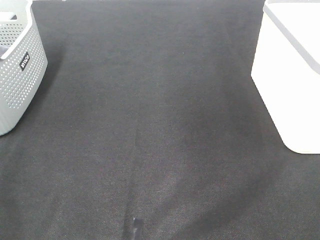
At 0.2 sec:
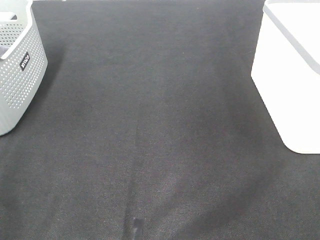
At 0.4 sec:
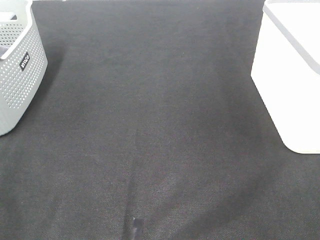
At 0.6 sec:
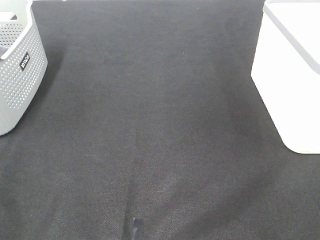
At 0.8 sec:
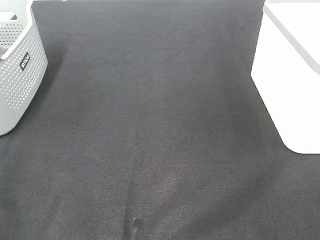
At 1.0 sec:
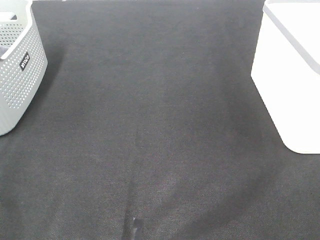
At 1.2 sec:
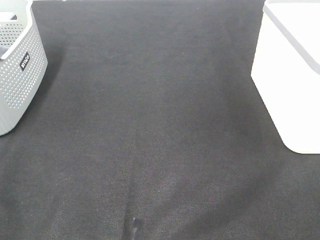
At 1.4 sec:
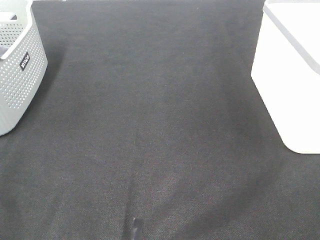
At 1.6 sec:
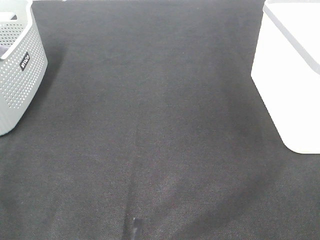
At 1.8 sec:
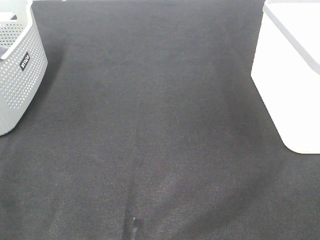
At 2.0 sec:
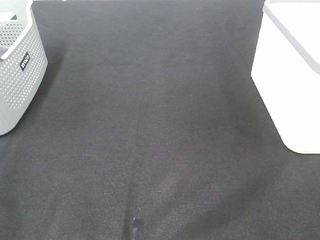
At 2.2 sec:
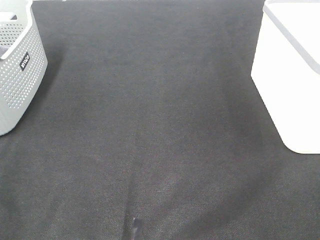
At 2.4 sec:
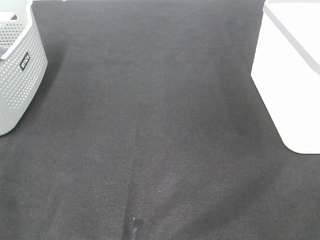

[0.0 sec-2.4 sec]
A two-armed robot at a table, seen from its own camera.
1.2 sec to 2.4 sec: The two grippers keep their place.

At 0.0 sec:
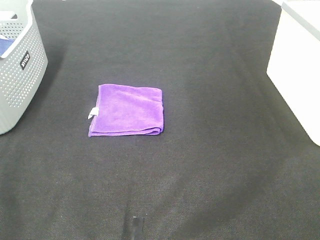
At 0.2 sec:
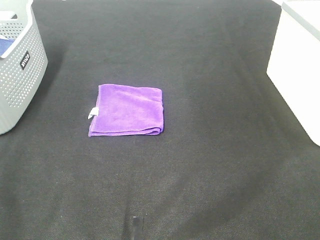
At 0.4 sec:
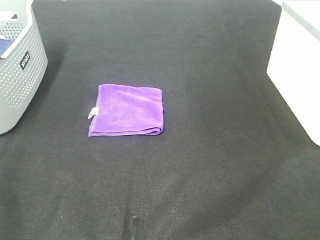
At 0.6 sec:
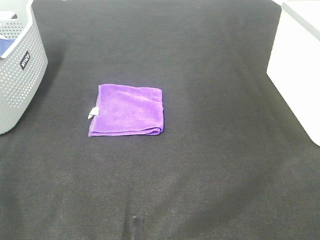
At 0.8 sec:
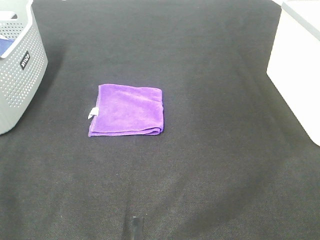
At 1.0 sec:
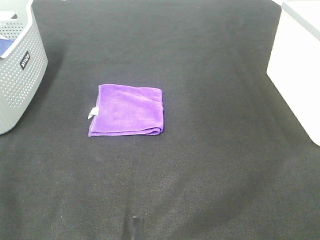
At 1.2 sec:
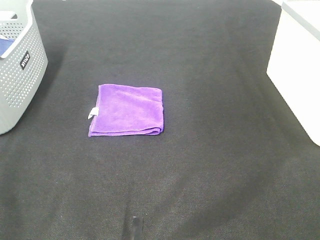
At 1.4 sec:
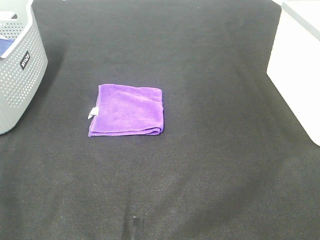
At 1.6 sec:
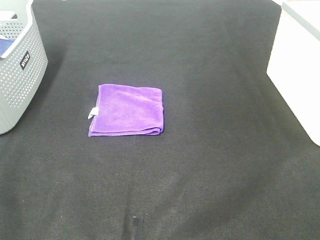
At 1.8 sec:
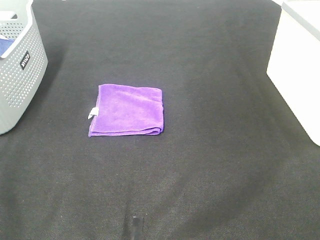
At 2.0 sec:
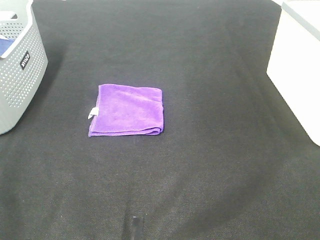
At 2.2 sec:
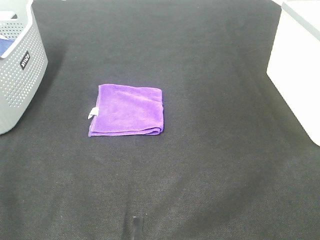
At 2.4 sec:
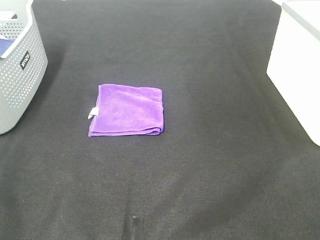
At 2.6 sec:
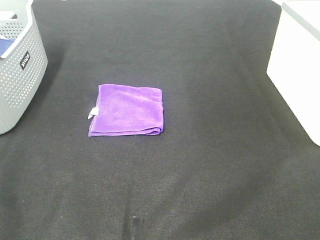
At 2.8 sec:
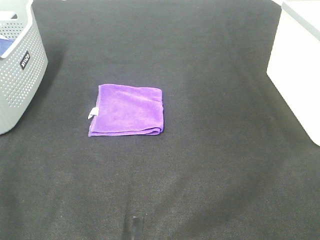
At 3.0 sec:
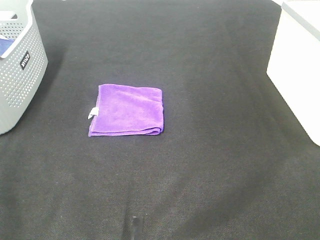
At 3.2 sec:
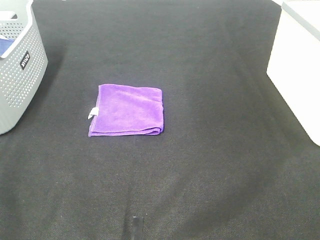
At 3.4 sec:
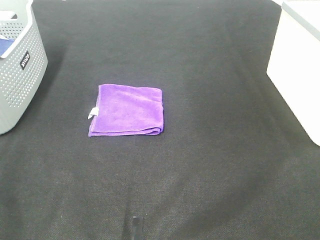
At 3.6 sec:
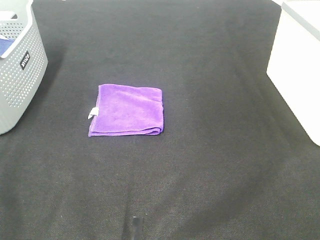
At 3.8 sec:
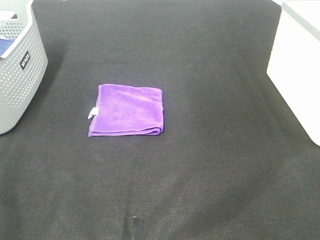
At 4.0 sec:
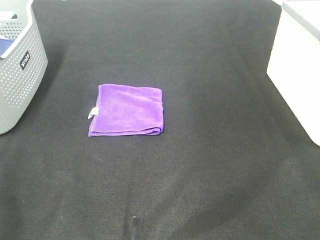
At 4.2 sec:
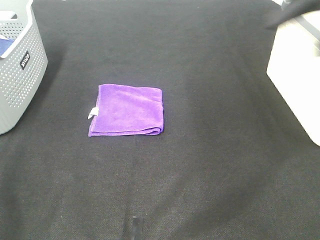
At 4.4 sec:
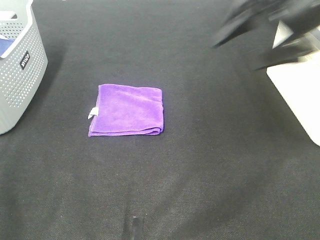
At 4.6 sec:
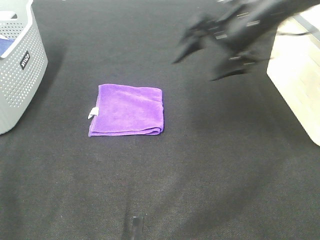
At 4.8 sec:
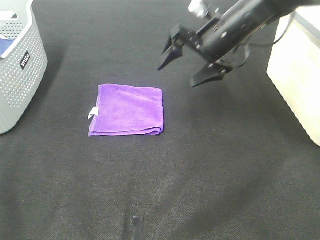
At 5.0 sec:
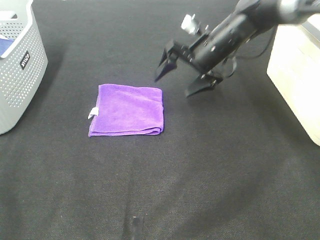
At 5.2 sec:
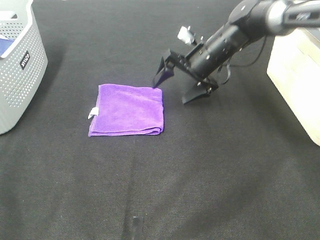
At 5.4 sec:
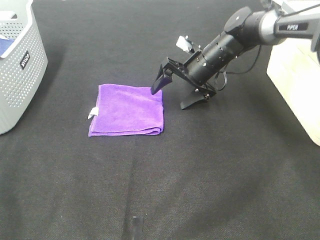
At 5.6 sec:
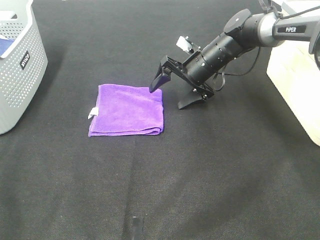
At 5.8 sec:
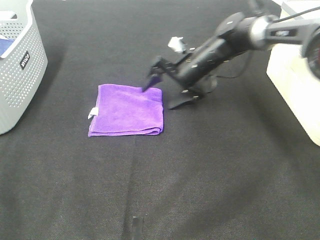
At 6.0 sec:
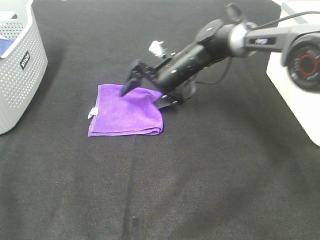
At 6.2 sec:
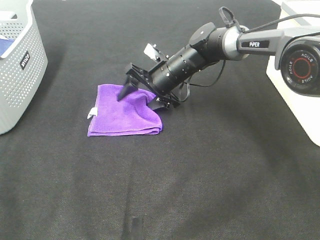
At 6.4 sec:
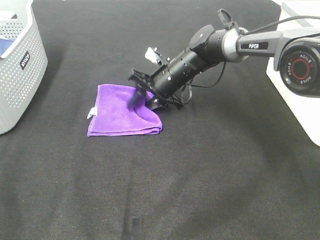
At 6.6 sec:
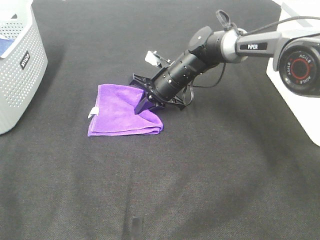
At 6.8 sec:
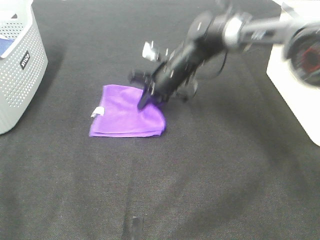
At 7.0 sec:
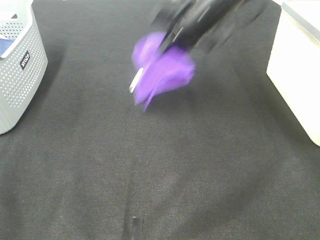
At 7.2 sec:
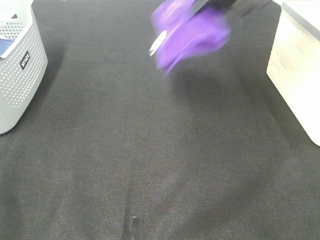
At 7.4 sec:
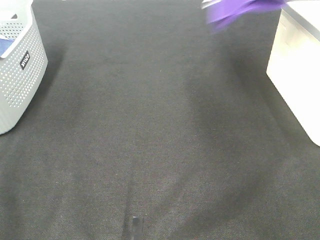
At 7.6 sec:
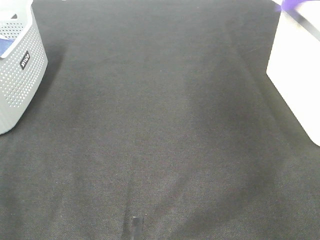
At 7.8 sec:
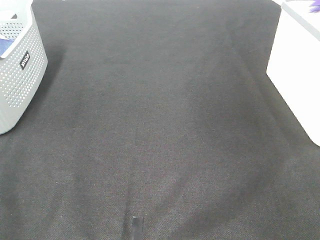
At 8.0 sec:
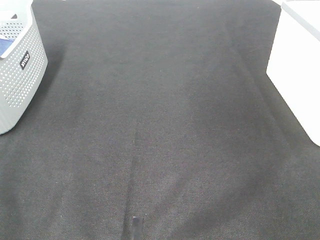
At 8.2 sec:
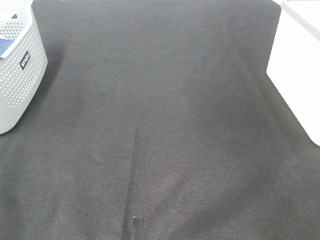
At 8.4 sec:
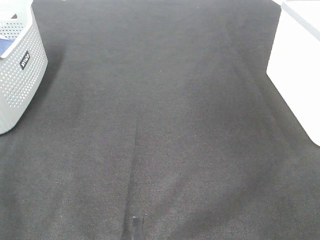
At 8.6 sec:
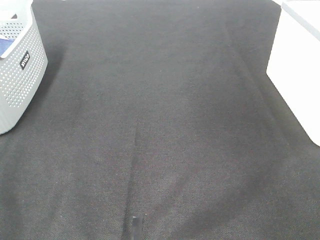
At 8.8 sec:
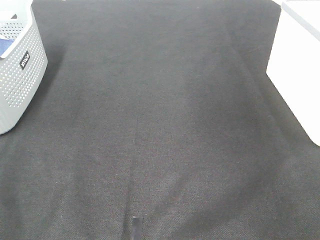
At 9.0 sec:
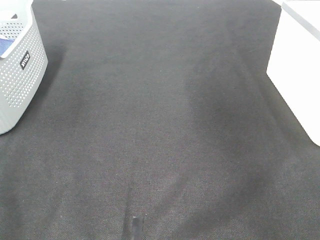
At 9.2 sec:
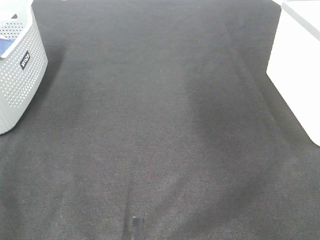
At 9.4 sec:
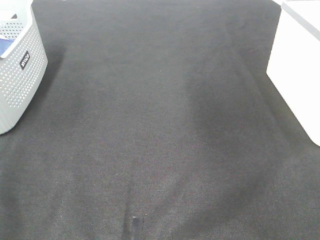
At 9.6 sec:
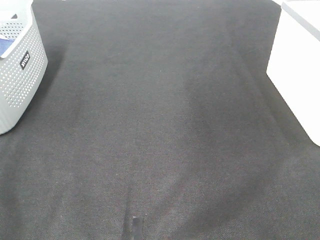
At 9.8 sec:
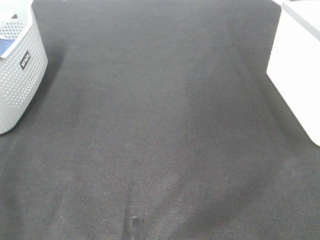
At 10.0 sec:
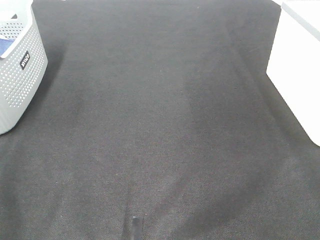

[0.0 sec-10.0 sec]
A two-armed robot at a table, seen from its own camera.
Step, 0.0 sec to 6.6 sec: Right hand: grab the folded purple towel.
Step, 6.8 sec to 8.4 sec: Right hand: place the purple towel in right basket.
0.0 sec to 2.8 sec: Both grippers stay put.
2.8 sec to 4.2 sec: The right gripper goes roughly 25 cm forward.
4.2 sec to 5.8 sec: The right gripper shifts about 35 cm downward, forward and to the left.
5.8 sec to 7.2 sec: The right gripper goes some 25 cm upward and to the right, and closes its fingers.
7.2 sec to 8.6 sec: The right gripper is displaced to the right by some 30 cm, and opens.
